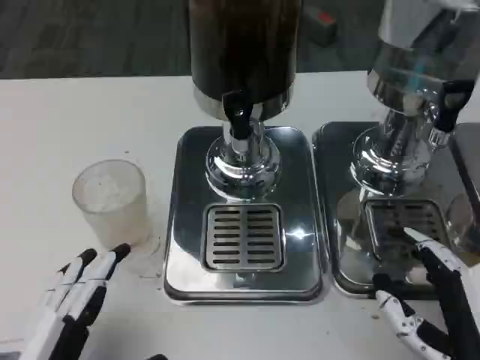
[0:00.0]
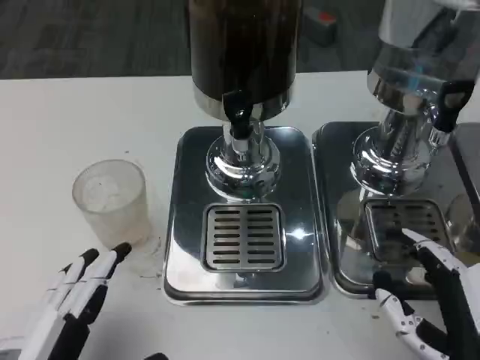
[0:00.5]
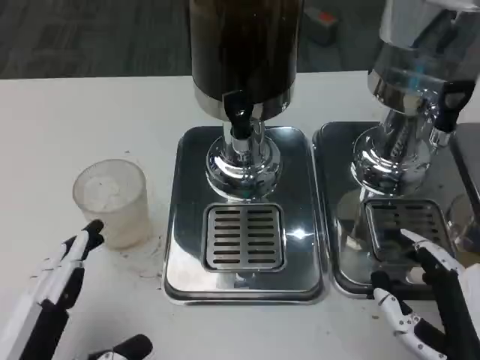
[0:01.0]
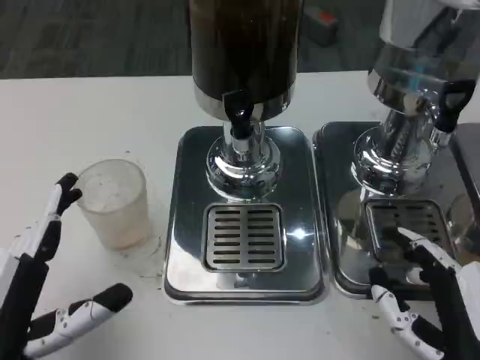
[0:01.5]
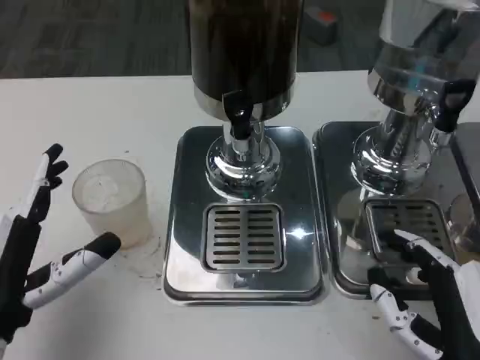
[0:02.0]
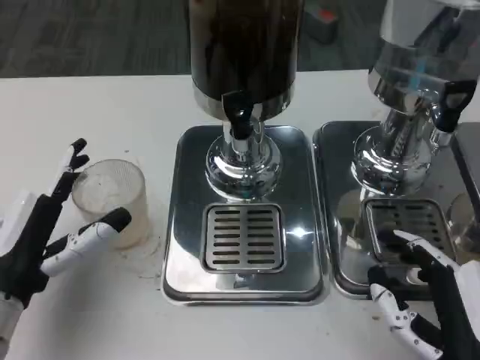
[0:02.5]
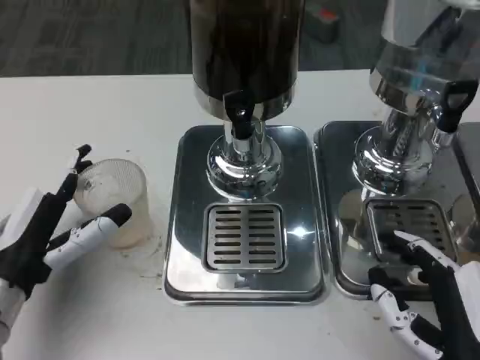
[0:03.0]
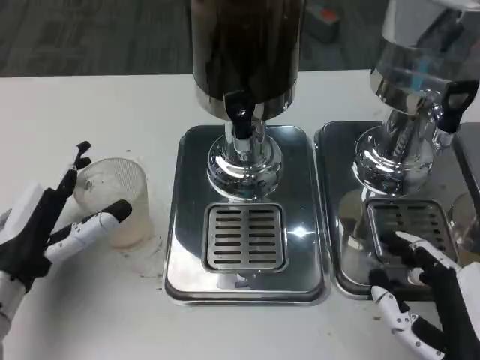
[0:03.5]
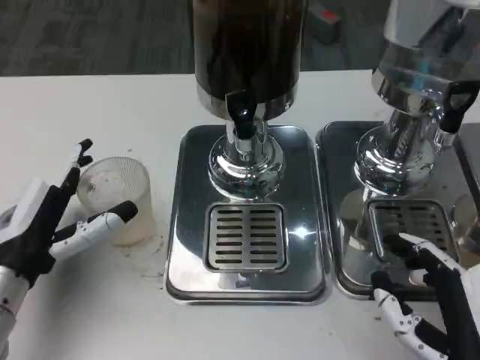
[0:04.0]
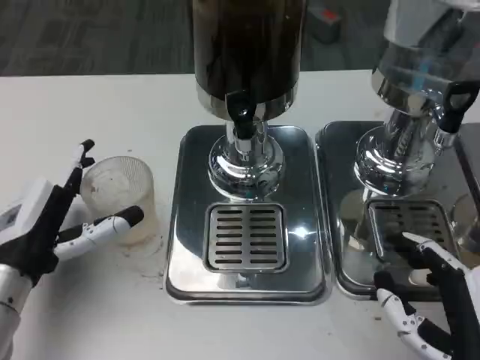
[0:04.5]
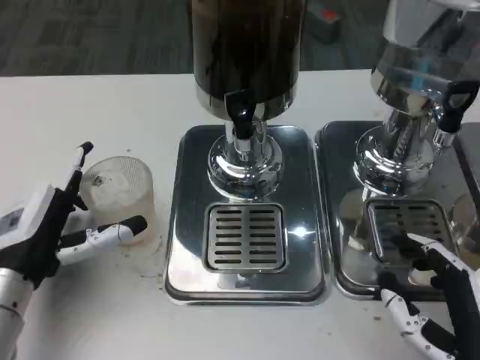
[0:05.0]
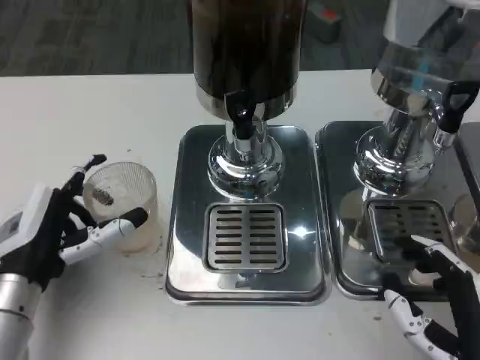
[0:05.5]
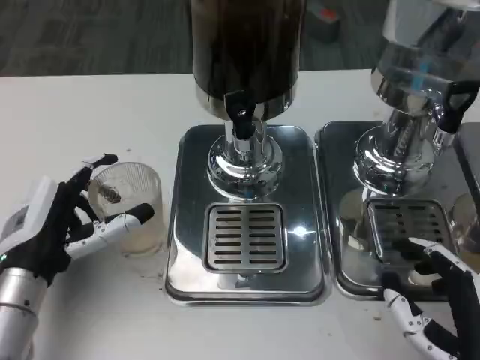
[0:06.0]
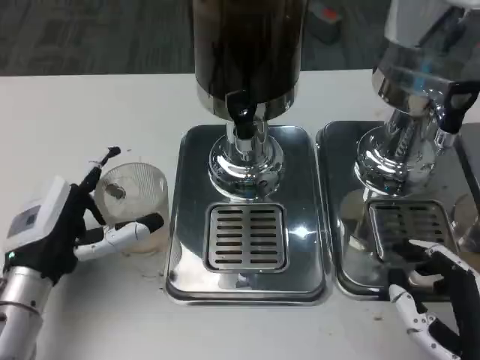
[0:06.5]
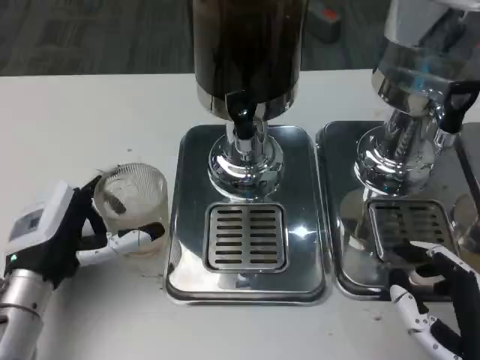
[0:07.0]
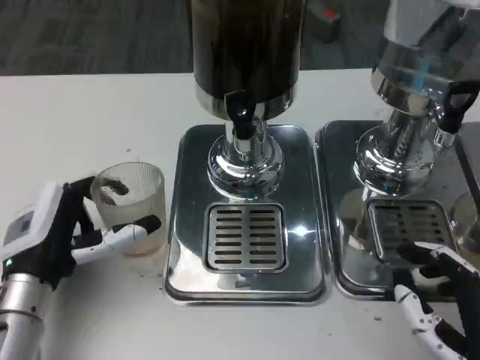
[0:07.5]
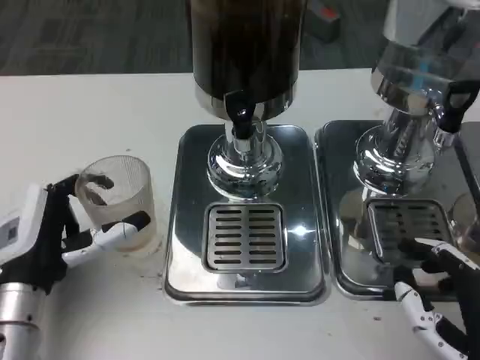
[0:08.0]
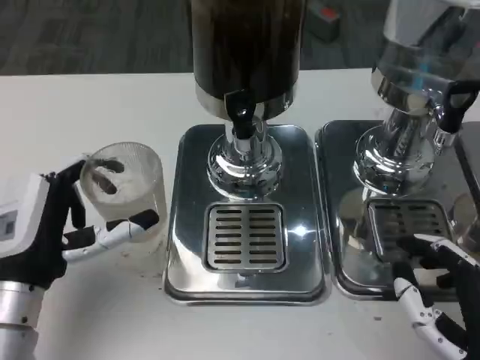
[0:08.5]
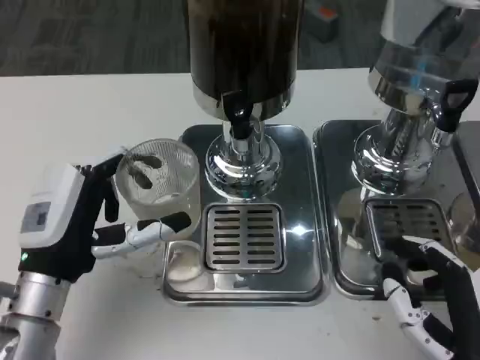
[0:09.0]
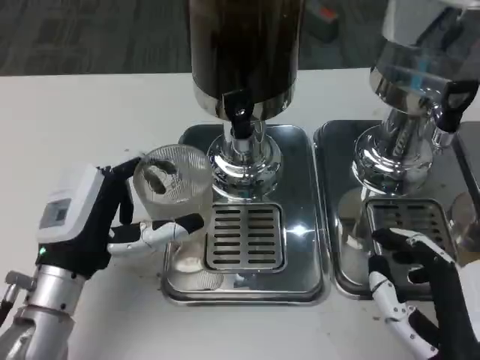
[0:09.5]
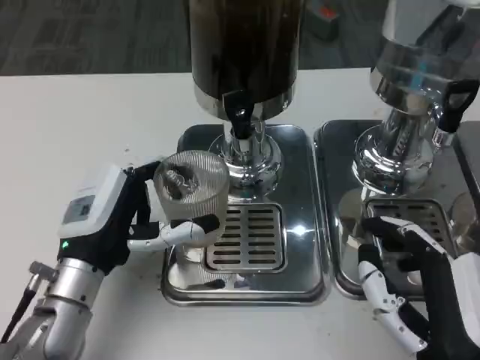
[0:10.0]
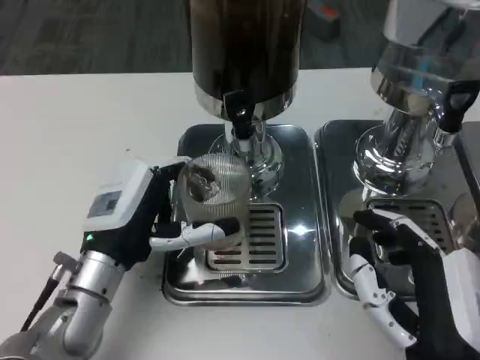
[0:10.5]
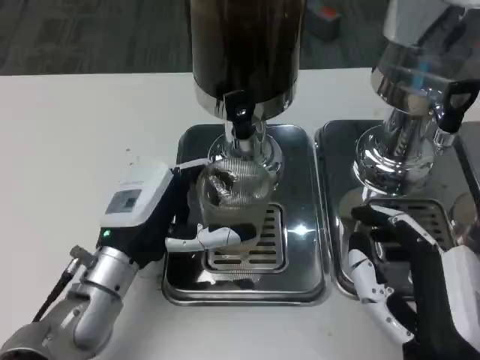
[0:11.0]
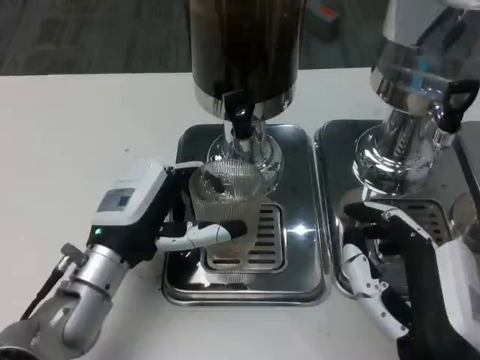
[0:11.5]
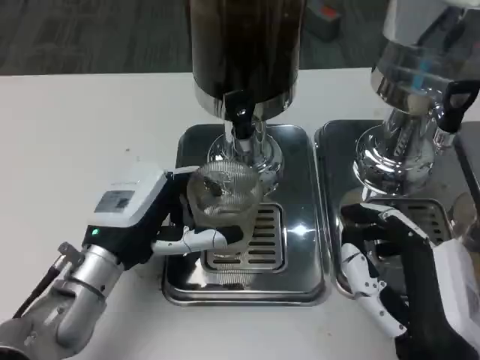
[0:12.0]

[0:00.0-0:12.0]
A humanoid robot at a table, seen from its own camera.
Task of the whole recording: Grasp the cup under the faucet to collect the drink, then remove the cup.
0:00.0 to 0:02.0: The left hand moves forward, roughly 10 cm.
0:02.0 to 0:04.0: The left hand heads forward, covering about 5 cm.
0:04.0 to 0:08.0: The hands make only small movements.
0:10.0 to 0:12.0: The hands stay close to where they were, moving slightly.

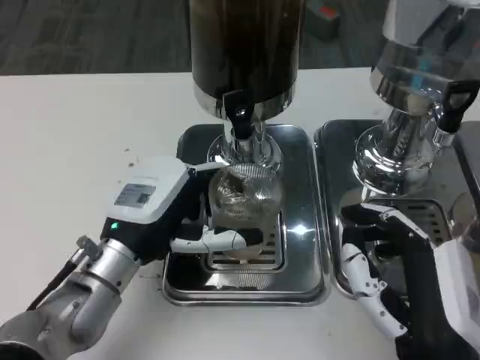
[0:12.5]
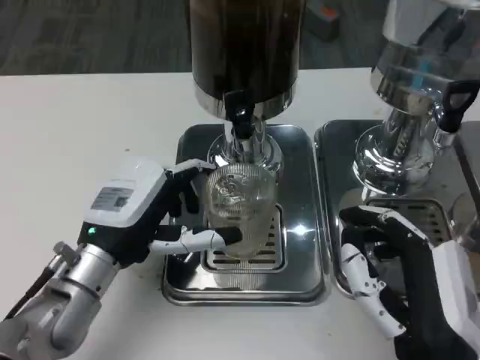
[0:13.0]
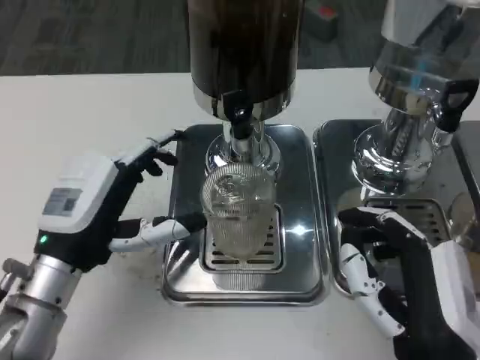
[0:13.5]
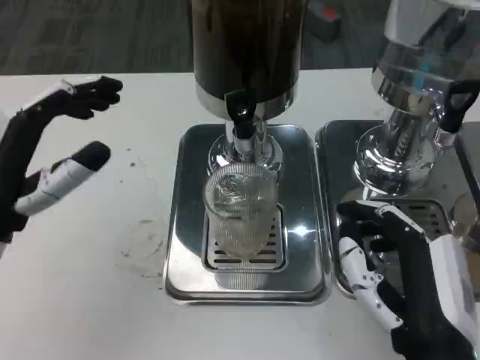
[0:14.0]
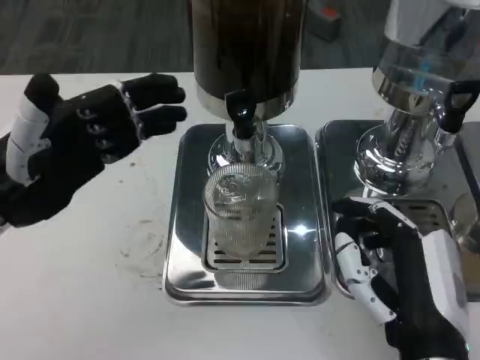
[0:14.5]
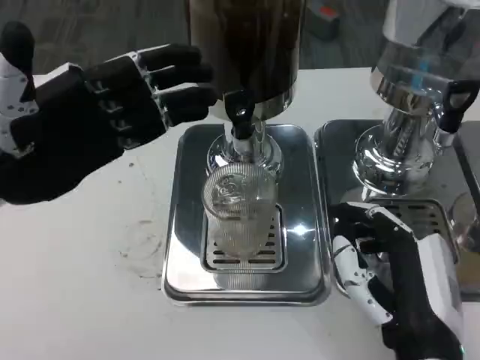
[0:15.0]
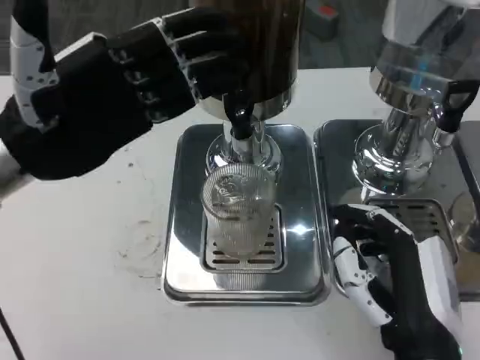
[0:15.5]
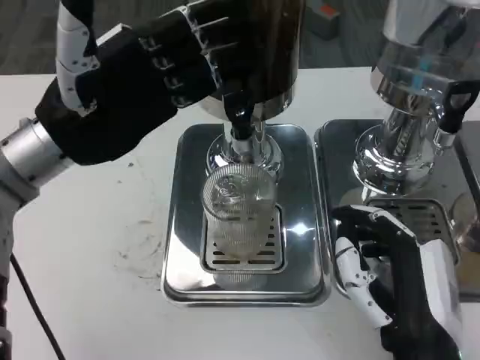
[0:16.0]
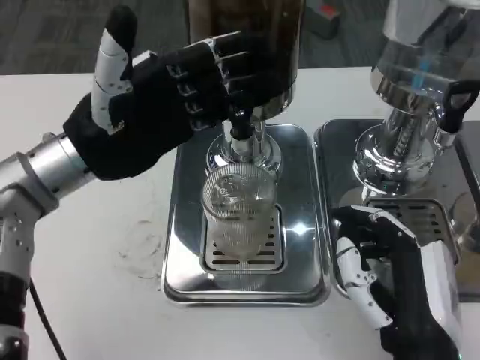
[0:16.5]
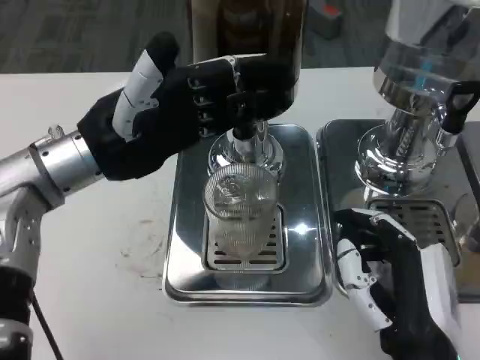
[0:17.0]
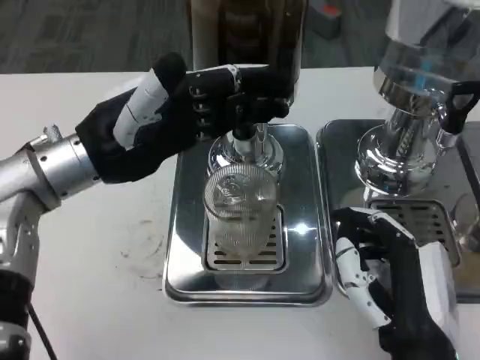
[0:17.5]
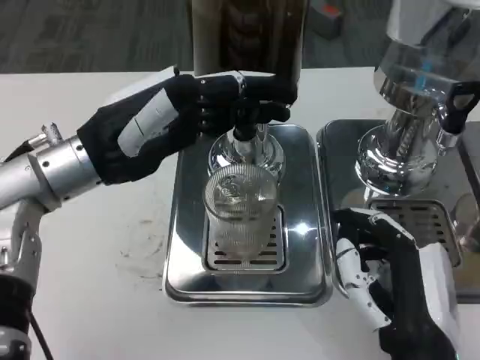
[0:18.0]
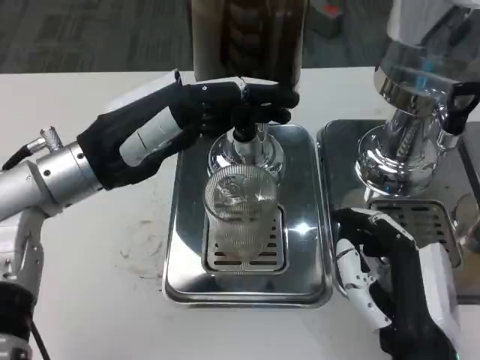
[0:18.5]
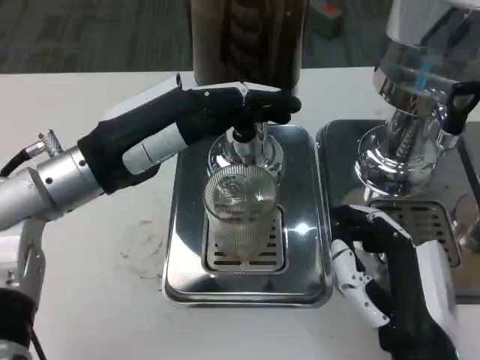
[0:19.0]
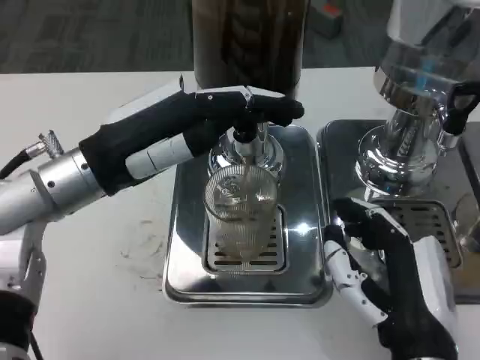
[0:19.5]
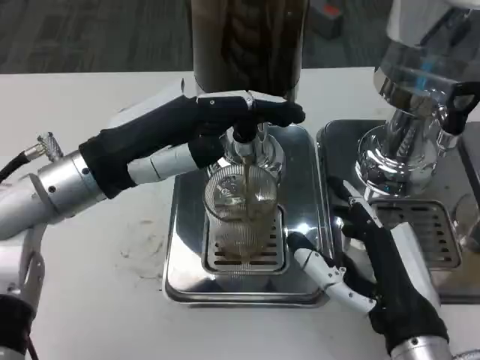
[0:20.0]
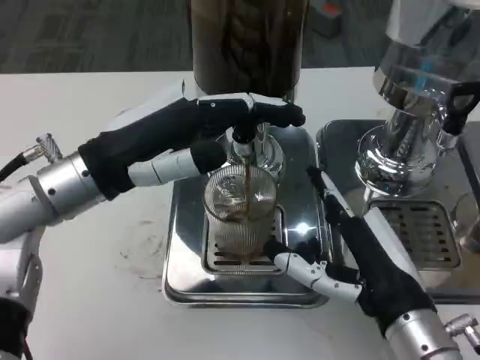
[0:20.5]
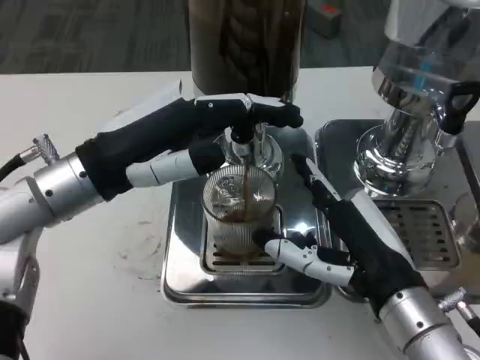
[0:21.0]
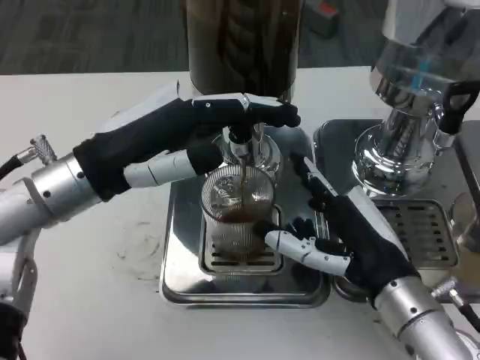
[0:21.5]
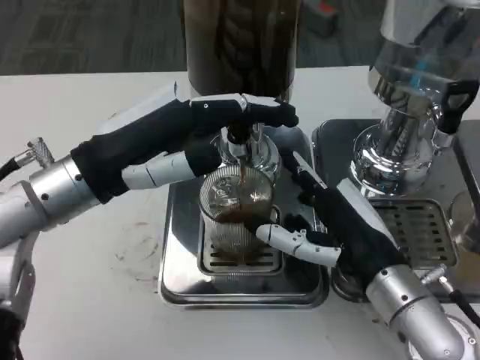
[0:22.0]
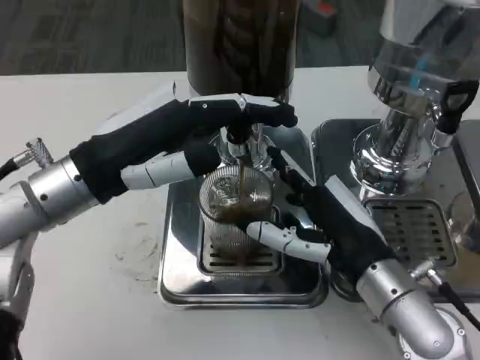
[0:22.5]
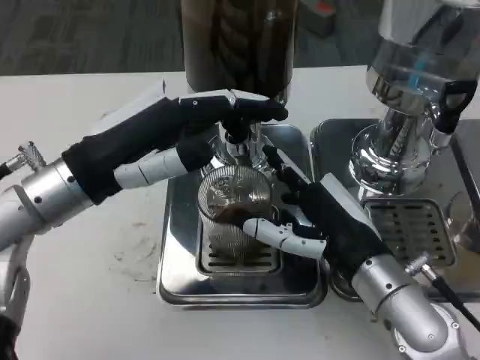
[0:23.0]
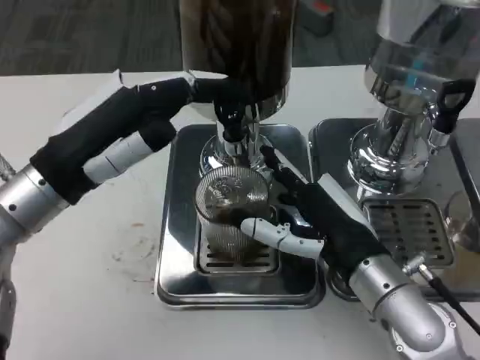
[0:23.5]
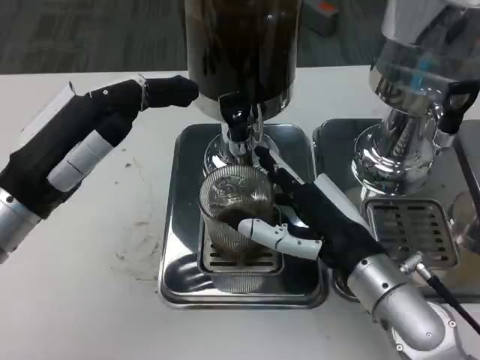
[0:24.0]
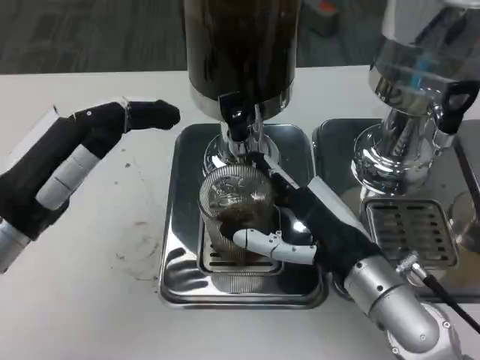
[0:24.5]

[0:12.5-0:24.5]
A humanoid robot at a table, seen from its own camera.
Task of the whole recording: Grasp the cup under the faucet to collect the drink, then remove the cup.
0:12.5 to 0:14.5: The left hand travels to the left and upward by some 15 cm.
0:14.5 to 0:16.5: The left hand travels to the right and forward by about 10 cm.
0:18.5 to 0:20.5: The right hand moves approximately 5 cm.
0:20.5 to 0:22.5: The right hand heads forward, covering some 5 cm.
0:22.5 to 0:24.5: The left hand heads to the left, covering some 5 cm.

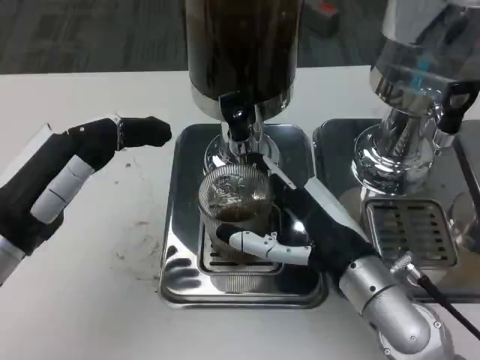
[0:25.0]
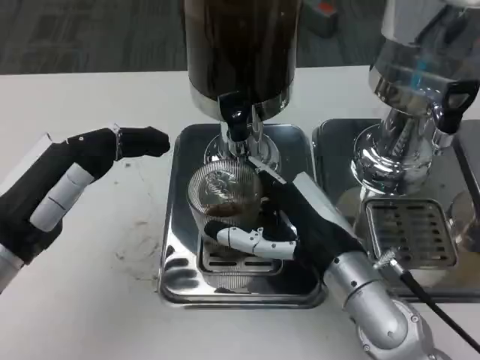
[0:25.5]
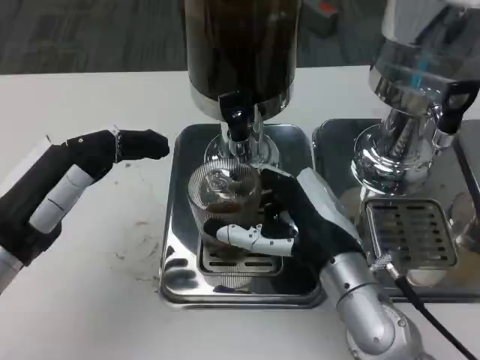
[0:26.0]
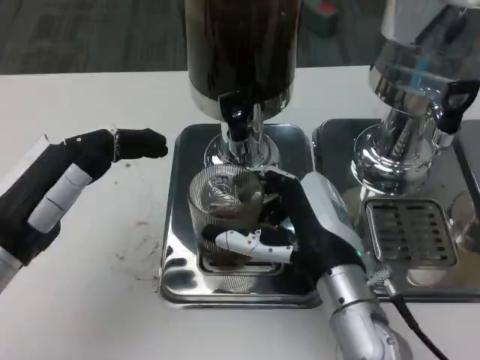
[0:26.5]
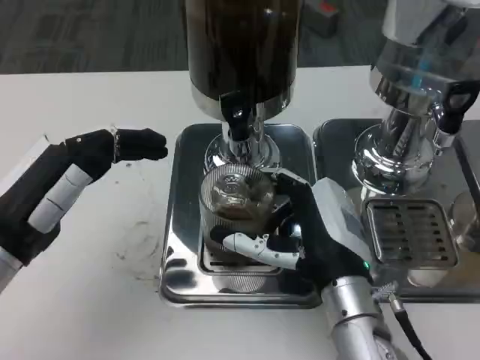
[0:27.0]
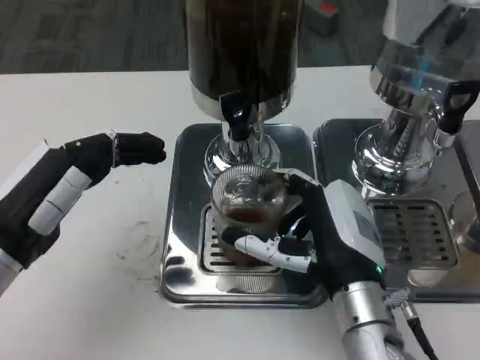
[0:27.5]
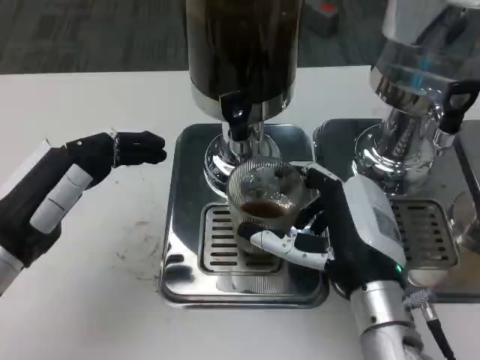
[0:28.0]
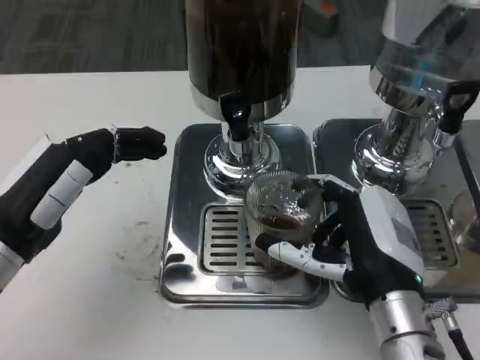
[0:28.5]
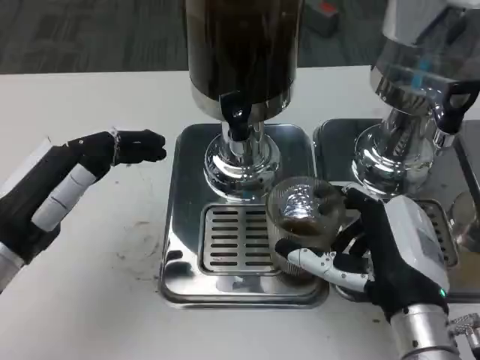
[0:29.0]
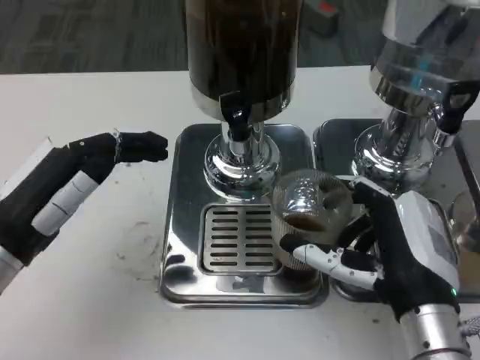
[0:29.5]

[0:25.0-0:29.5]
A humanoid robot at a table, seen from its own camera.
Task of the whole recording: Grasp the cup under the faucet to collect the drink, then remove the cup.
0:25.0 to 0:27.0: The hands make only small movements.
0:27.0 to 0:29.5: The right hand is displaced to the right by approximately 5 cm.
